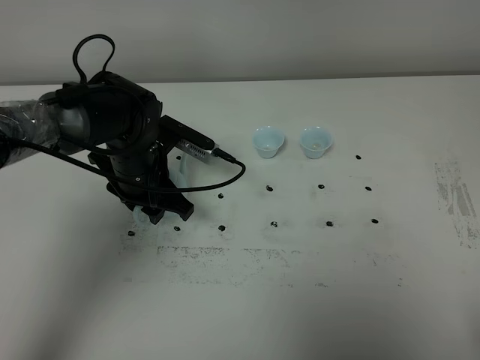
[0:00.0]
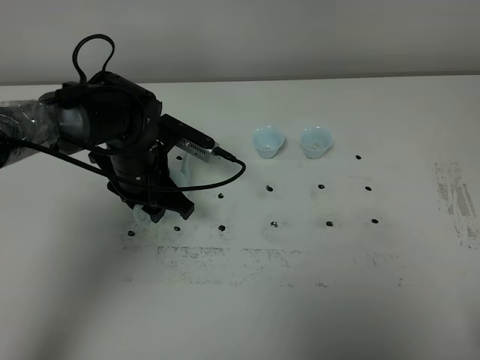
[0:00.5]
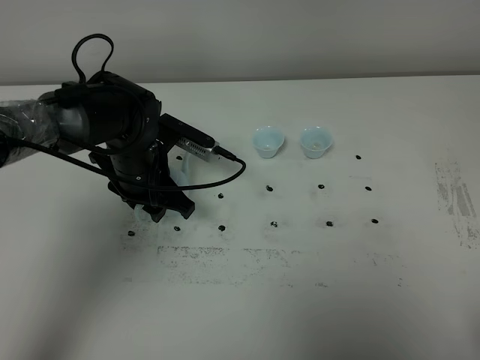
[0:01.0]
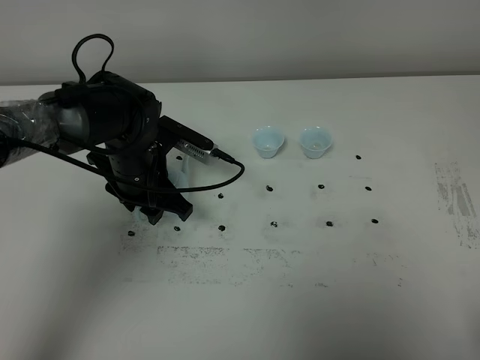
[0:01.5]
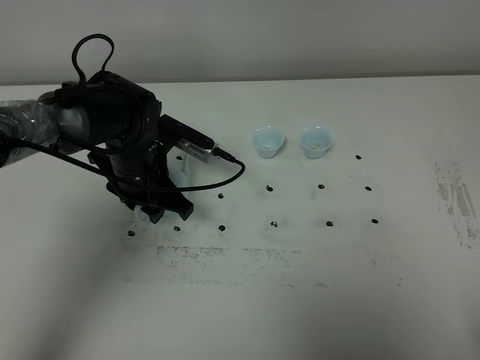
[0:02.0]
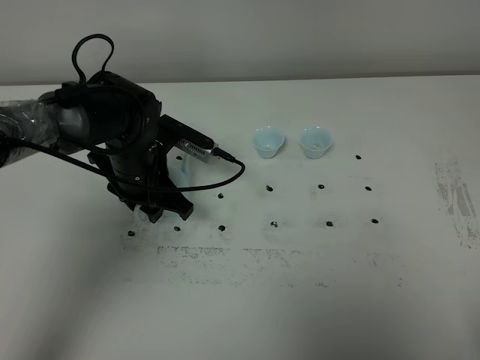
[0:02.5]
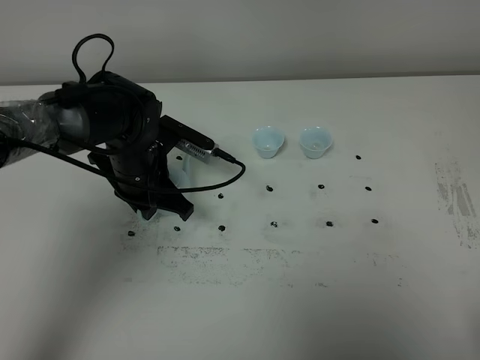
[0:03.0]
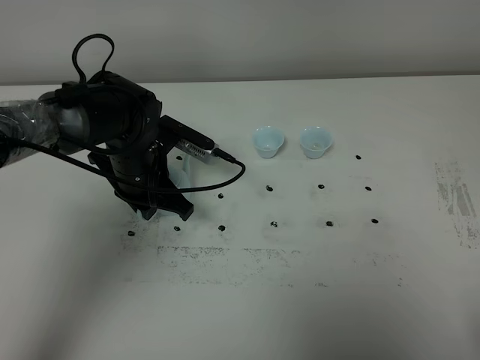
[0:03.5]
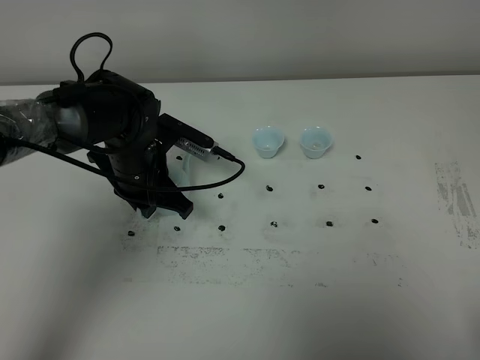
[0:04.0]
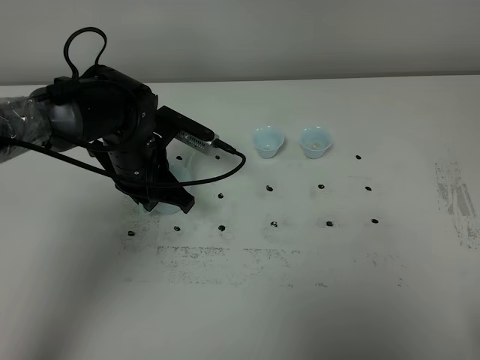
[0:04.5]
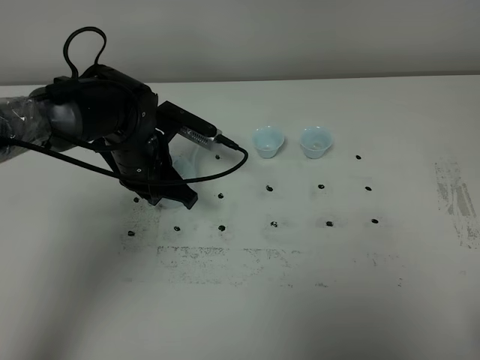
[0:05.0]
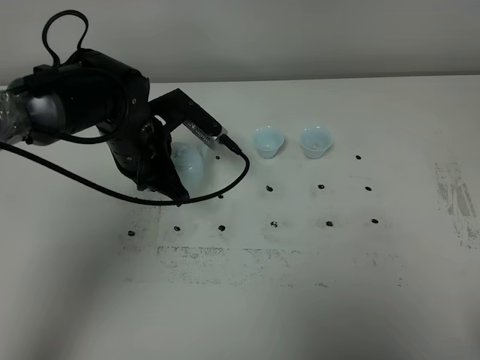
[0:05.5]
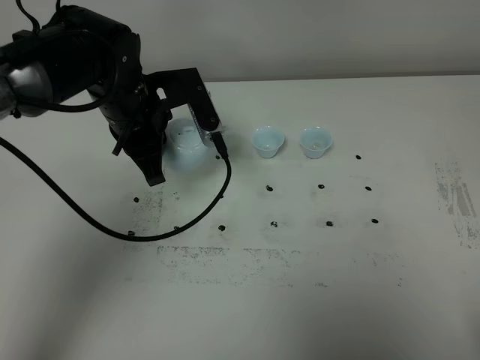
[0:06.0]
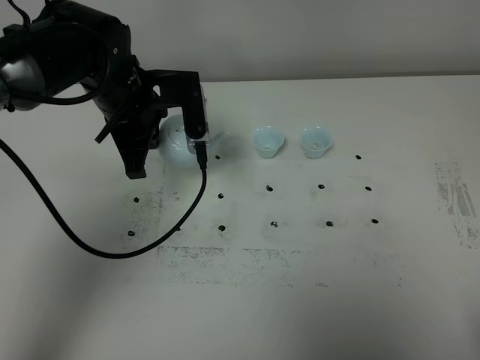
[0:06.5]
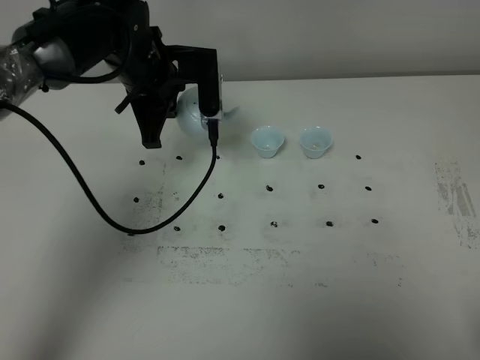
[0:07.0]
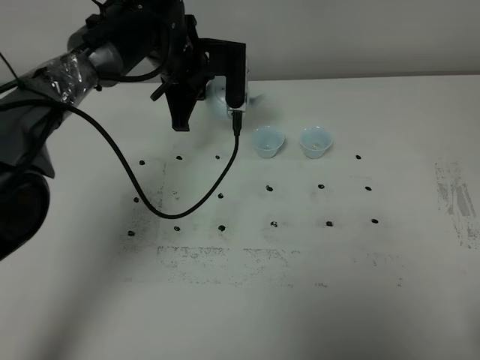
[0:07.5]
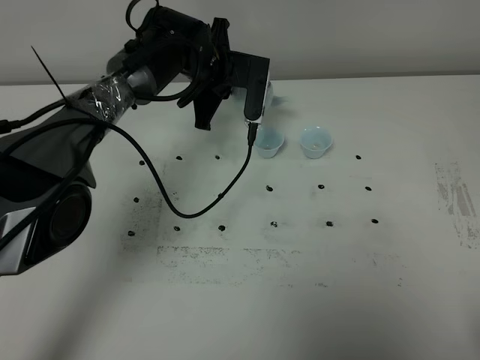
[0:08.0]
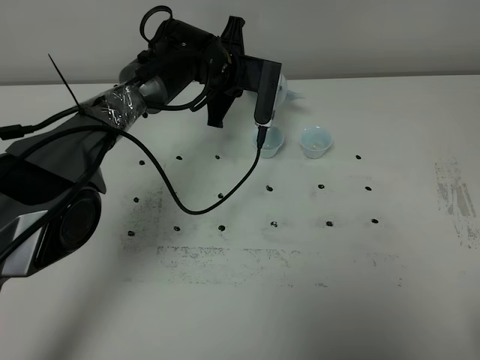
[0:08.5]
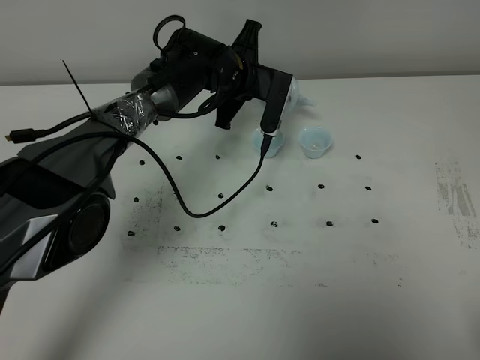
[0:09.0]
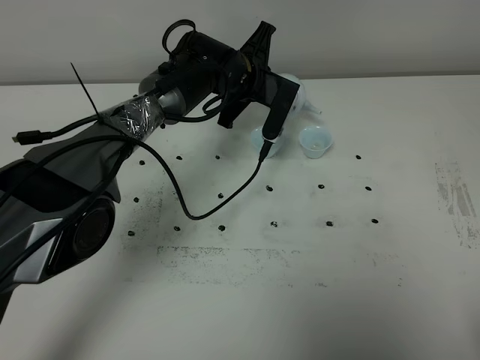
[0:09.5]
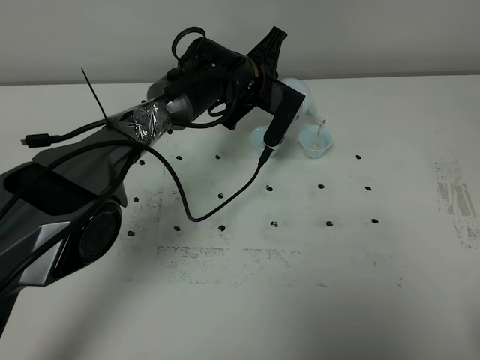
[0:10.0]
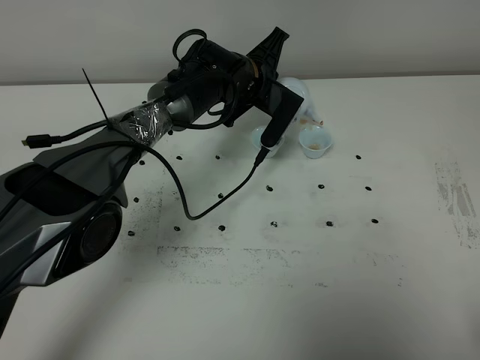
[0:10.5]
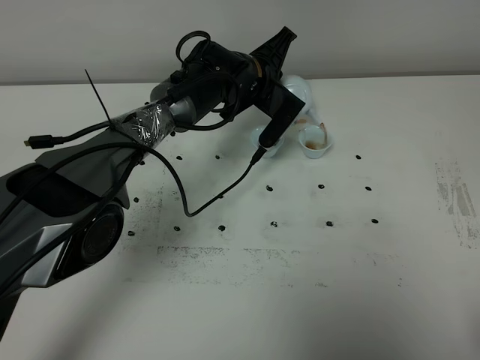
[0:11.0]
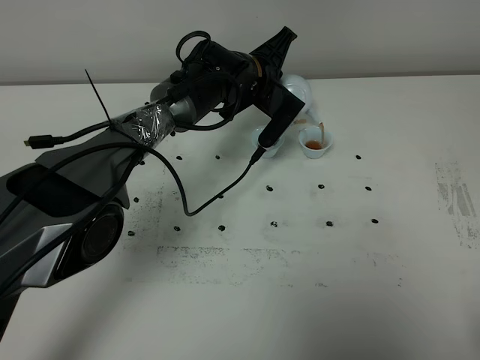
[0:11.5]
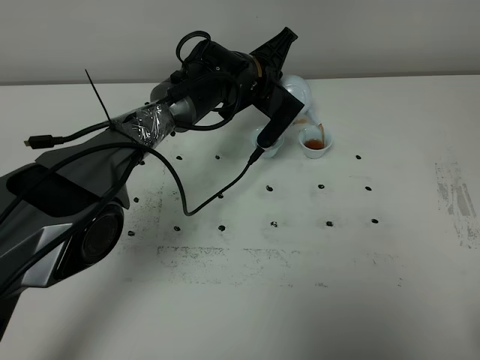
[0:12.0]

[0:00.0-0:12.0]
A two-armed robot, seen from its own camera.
Task of the whole recording: grasp the blue porcelain teapot and pour the tea into the two blue porcelain teacups one by one, put the blue porcelain teapot back in its original place.
Step, 0:00.0 to 0:04.5: Pick up the teapot with the left gripper.
0:00.0 to 0:02.0: Both grippers stay about where they are.
0:02.0 to 0:04.0: The left gripper closes its fingers.
0:04.0 to 0:06.0: The left gripper moves upward, roughly 10 cm.
0:06.0 to 0:08.0: The left gripper heads forward and to the right, covering roughly 15 cm.
0:08.0 to 0:10.0: The left gripper heads to the right, covering approximately 5 cm.
0:10.0 to 0:12.0: The grippers move only a little.

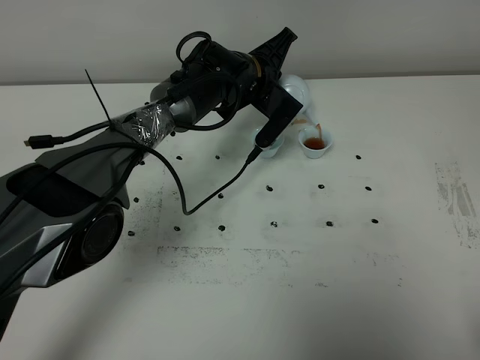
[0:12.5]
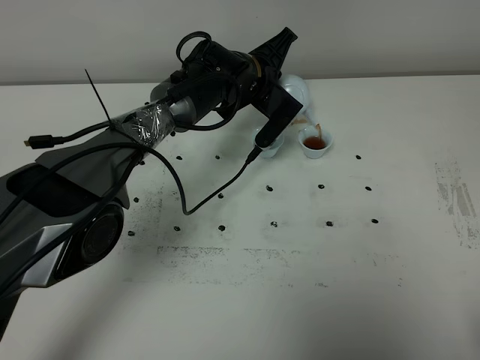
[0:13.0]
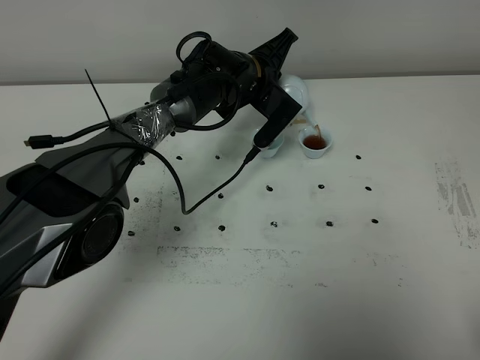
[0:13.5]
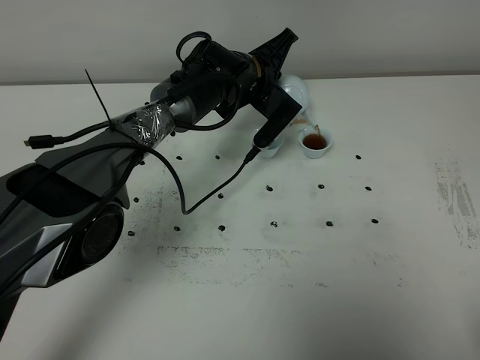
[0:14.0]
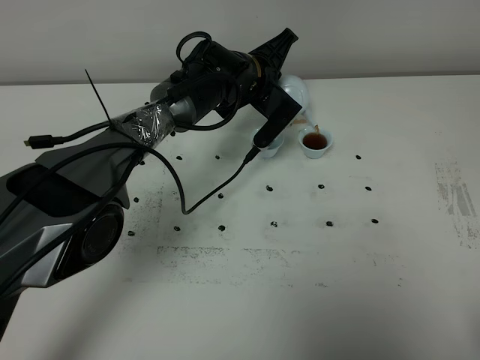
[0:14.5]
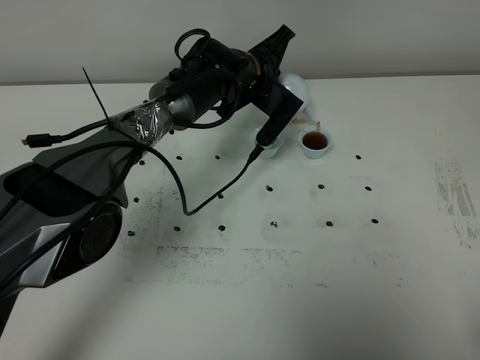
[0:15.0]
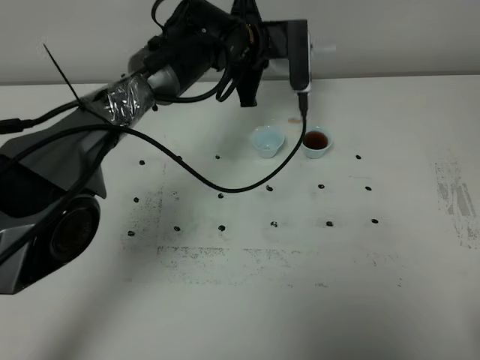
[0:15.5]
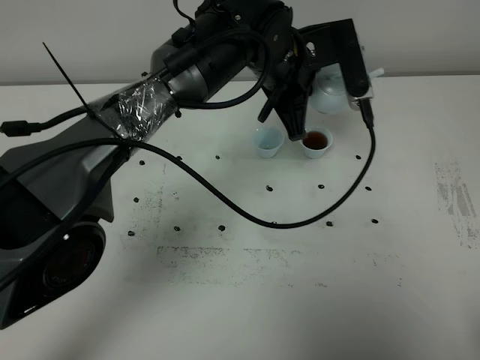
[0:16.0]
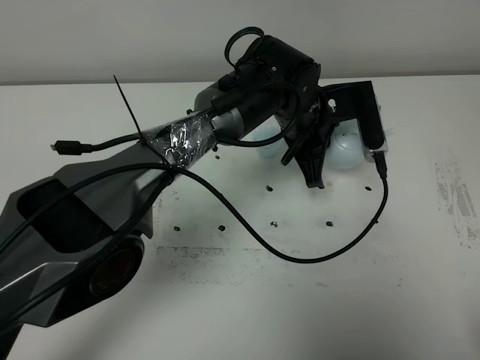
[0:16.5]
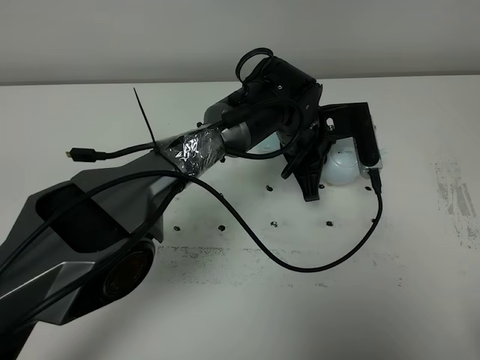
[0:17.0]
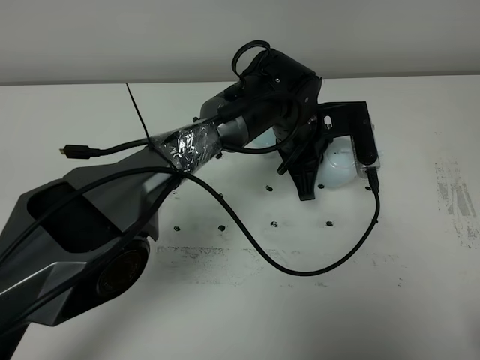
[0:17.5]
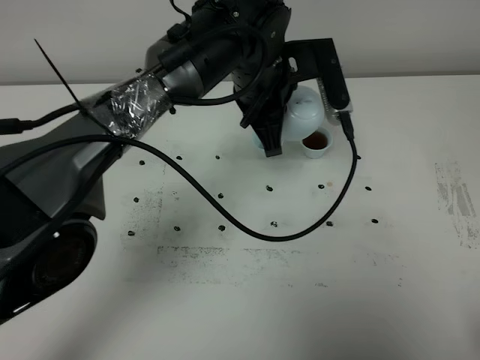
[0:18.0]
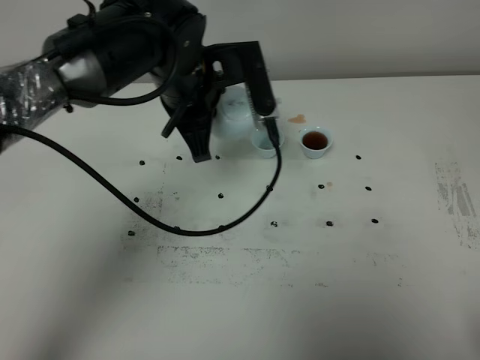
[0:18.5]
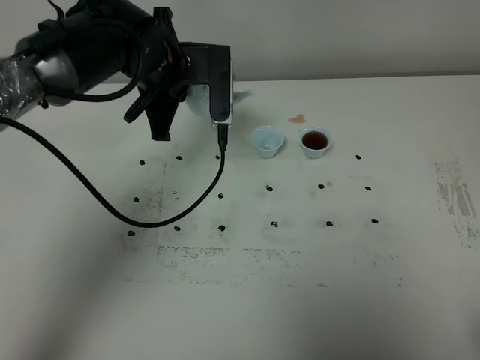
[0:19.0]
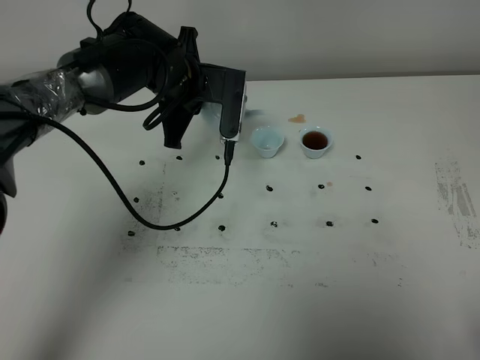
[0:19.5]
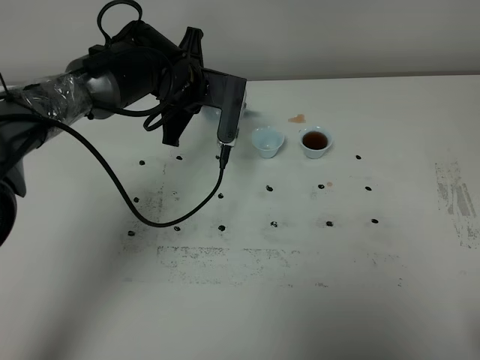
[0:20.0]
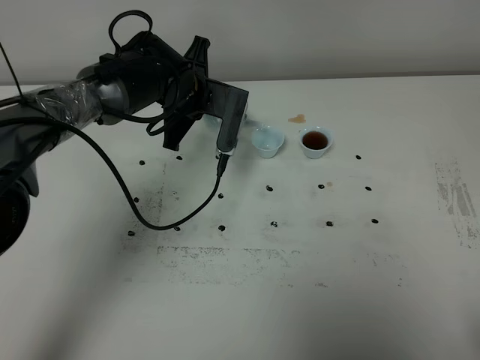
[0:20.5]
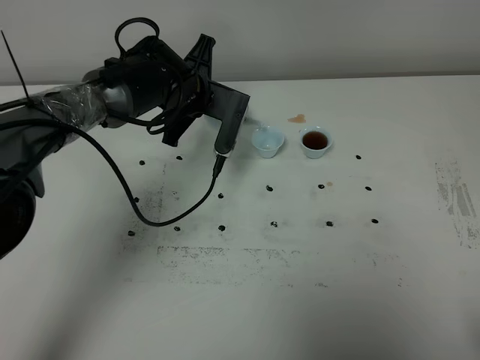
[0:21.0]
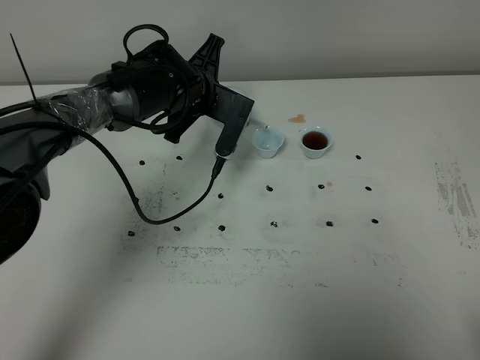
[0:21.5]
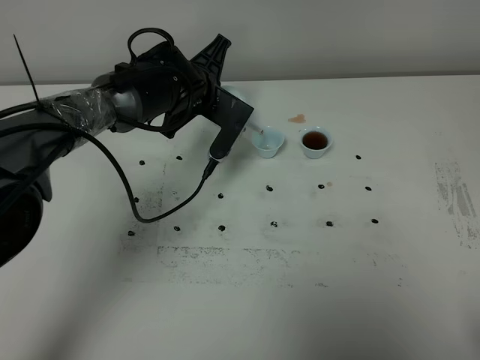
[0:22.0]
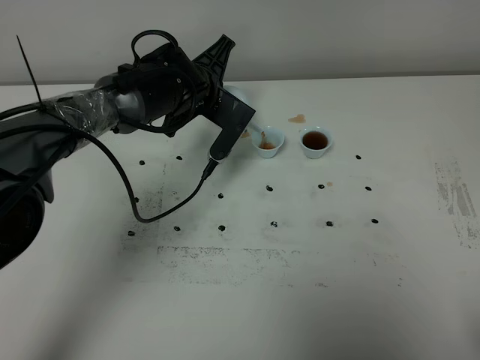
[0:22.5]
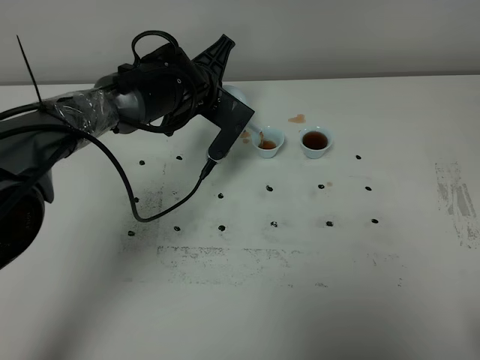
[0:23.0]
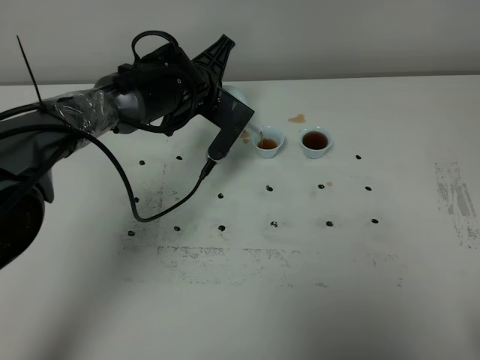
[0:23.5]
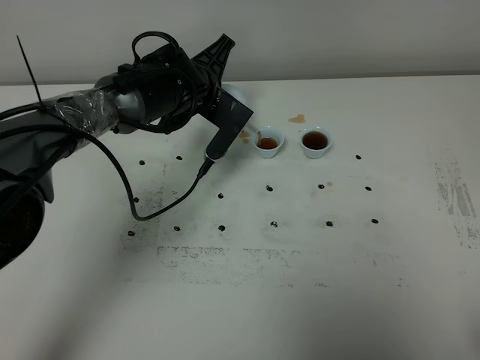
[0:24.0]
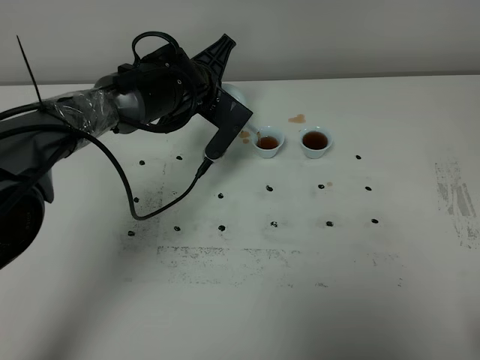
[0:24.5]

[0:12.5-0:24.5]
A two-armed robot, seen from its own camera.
Task of the whole recording: grasp the blue porcelain teapot and pour the tea into the two blue porcelain teacups one by one, put the blue porcelain teapot back in its original place.
0:12.5 to 0:14.5: Neither gripper changes place.
0:14.5 to 0:16.5: The left gripper is displaced backward and to the right by approximately 10 cm.
0:16.5 to 0:18.5: The left gripper shifts roughly 15 cm to the left and upward.
0:18.5 to 0:20.5: The left gripper moves downward and forward, about 10 cm.
0:22.5 to 0:24.5: Neither gripper changes place.

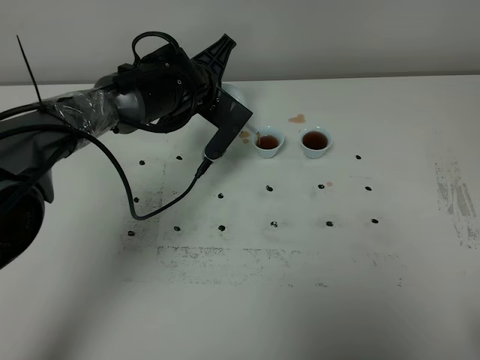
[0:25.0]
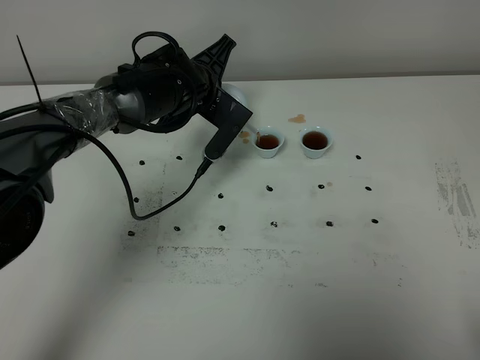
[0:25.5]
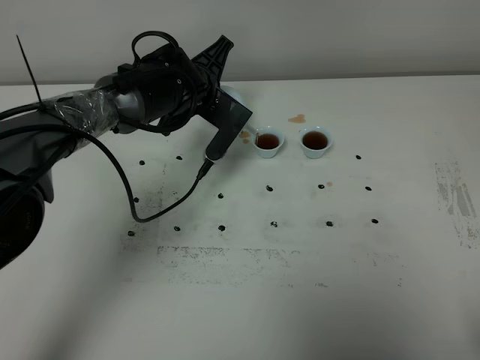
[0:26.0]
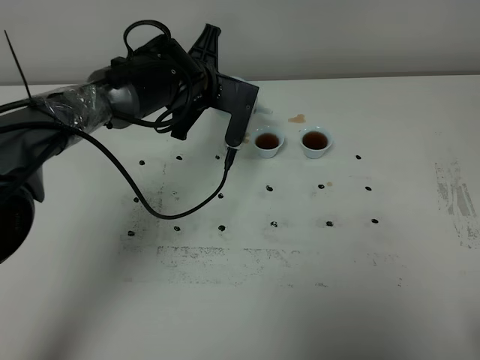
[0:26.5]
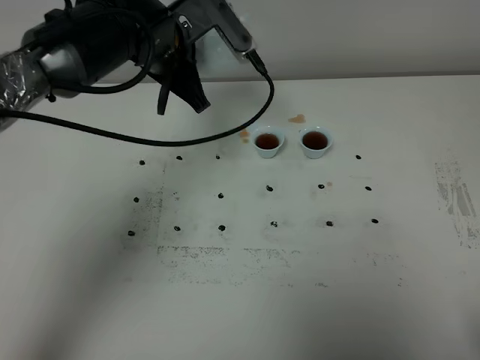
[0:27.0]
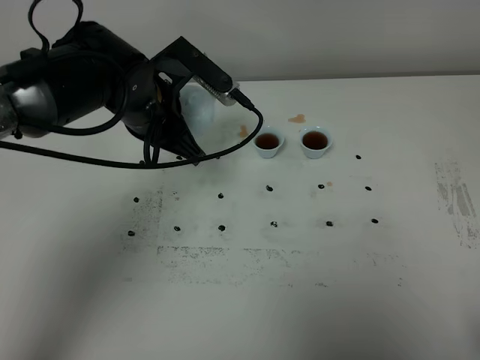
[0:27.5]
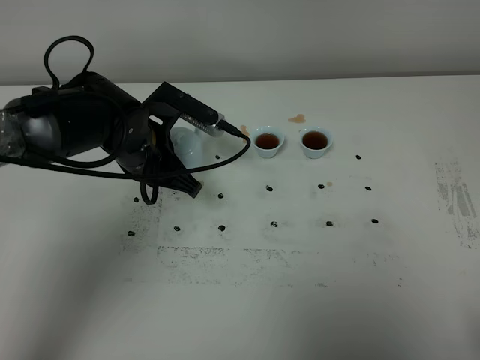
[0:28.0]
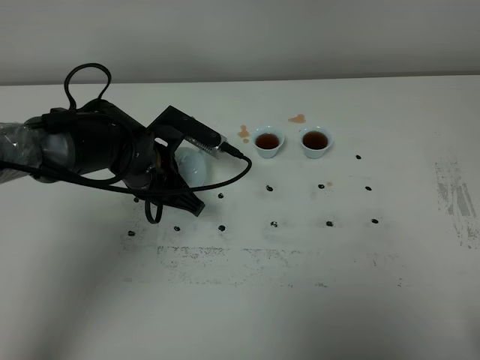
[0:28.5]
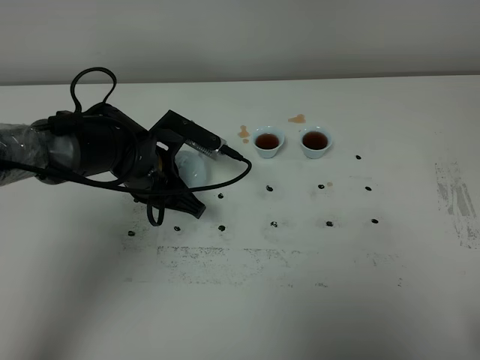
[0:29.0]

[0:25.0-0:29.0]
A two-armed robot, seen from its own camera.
Task of the whole recording: grasp the blue porcelain teapot and pour the tea into the two blue porcelain teacups one by one, put the blue porcelain teapot back in its original place.
0:25.0 to 0:27.0: The left gripper goes some 10 cm upward.
0:27.0 to 0:29.0: The left gripper goes approximately 15 cm downward and backward.
